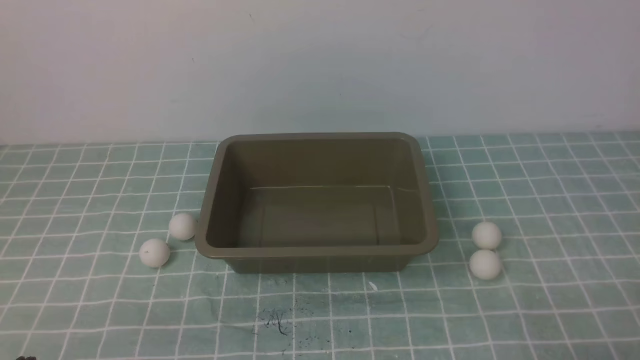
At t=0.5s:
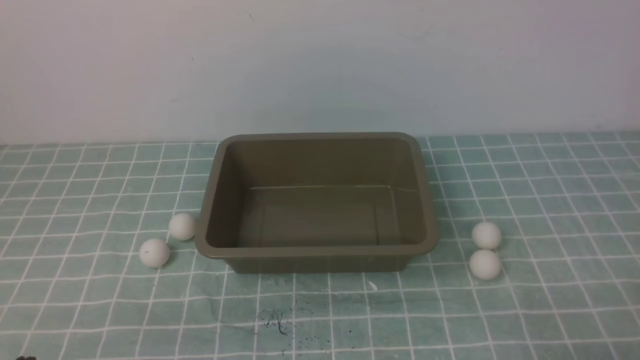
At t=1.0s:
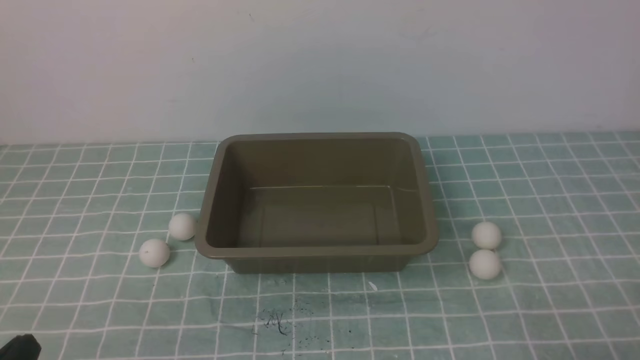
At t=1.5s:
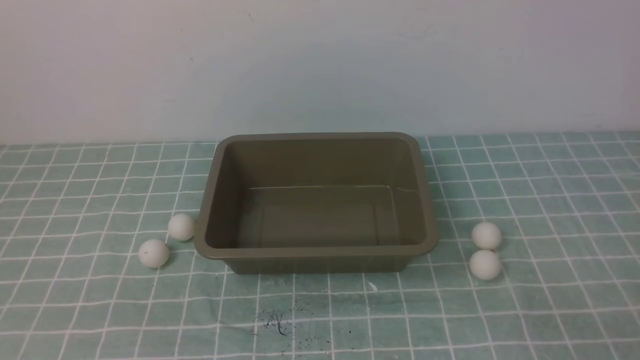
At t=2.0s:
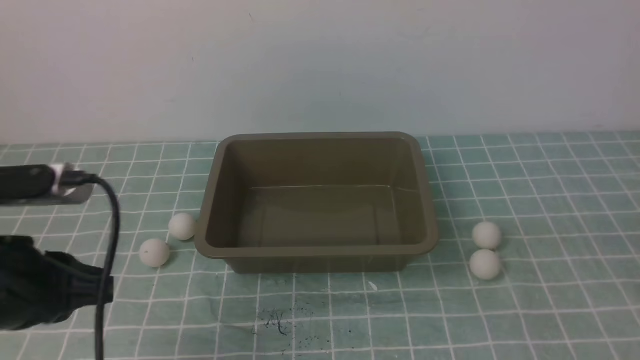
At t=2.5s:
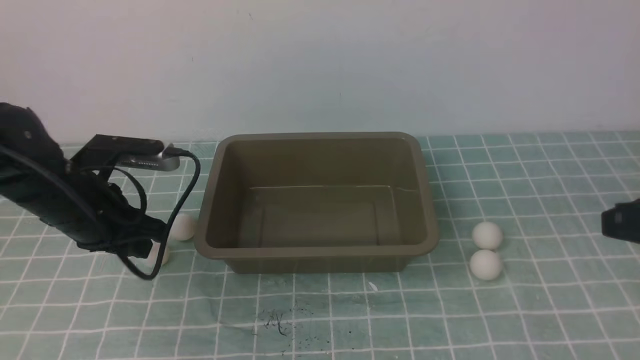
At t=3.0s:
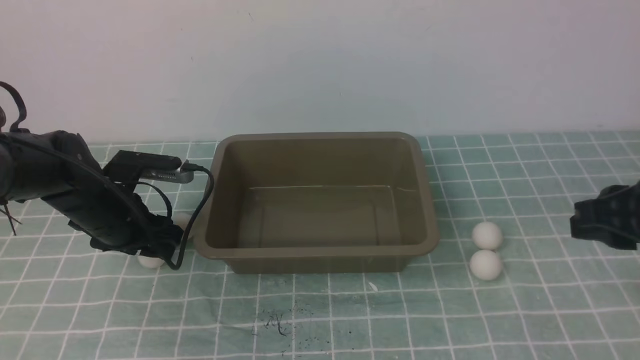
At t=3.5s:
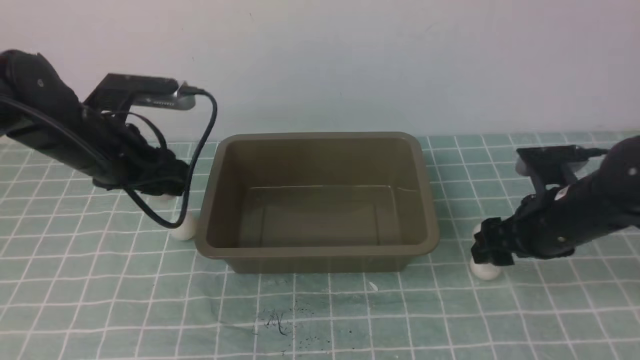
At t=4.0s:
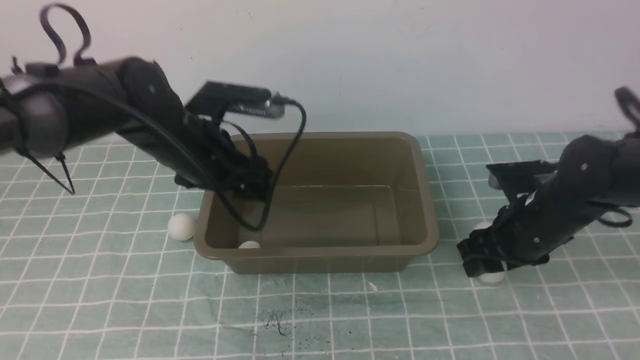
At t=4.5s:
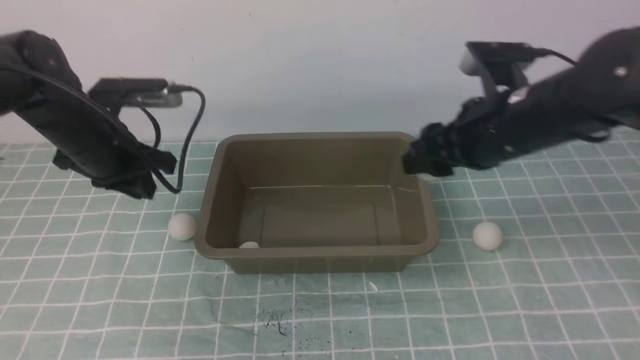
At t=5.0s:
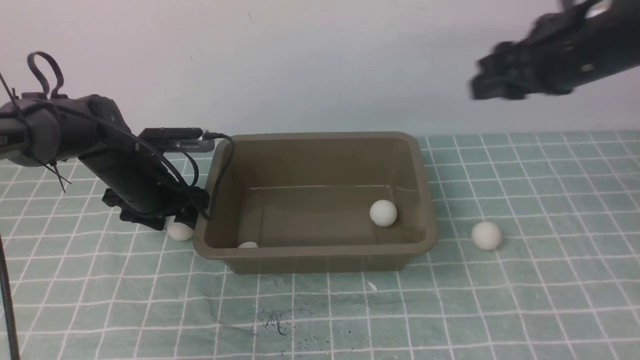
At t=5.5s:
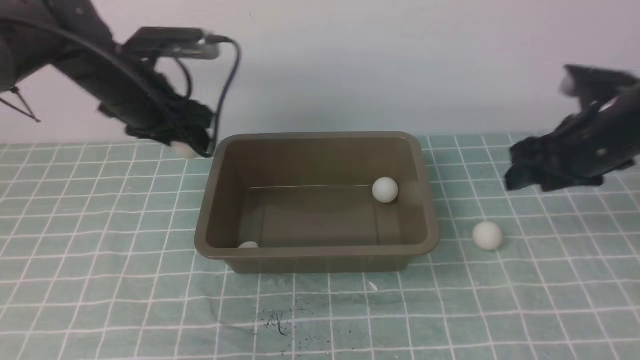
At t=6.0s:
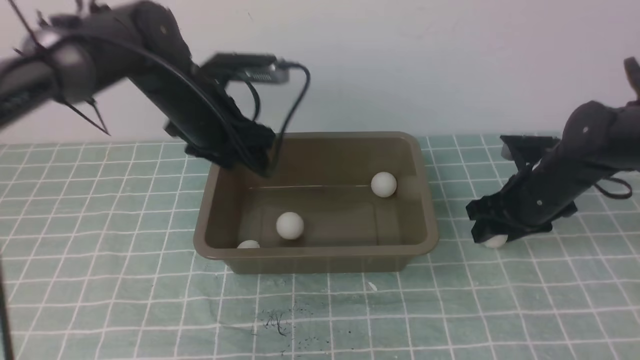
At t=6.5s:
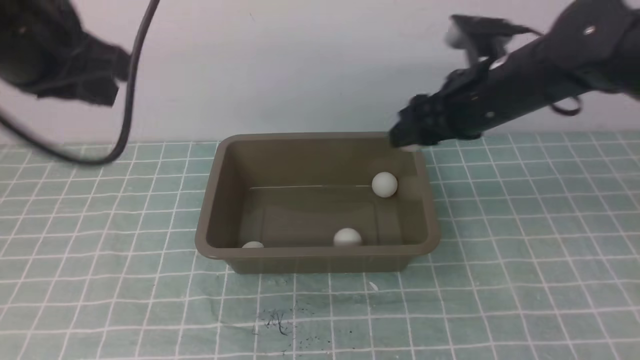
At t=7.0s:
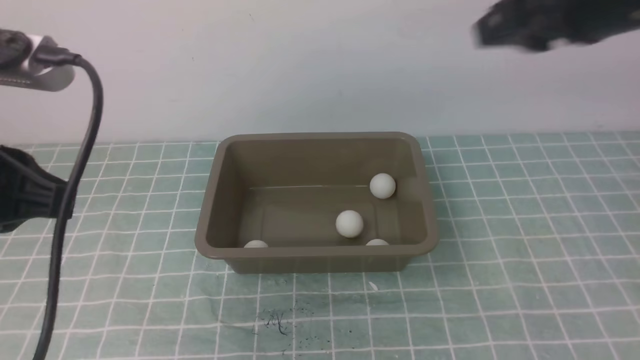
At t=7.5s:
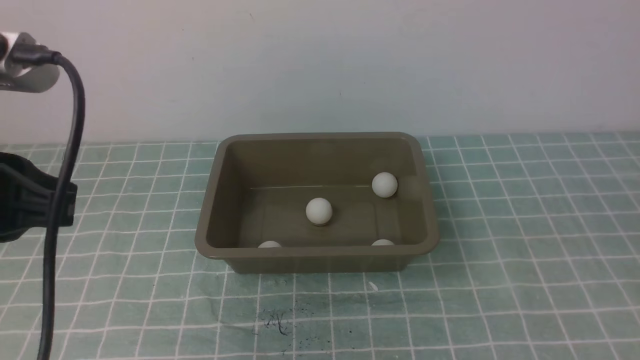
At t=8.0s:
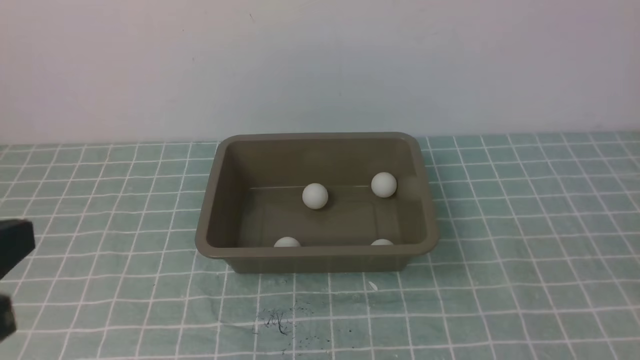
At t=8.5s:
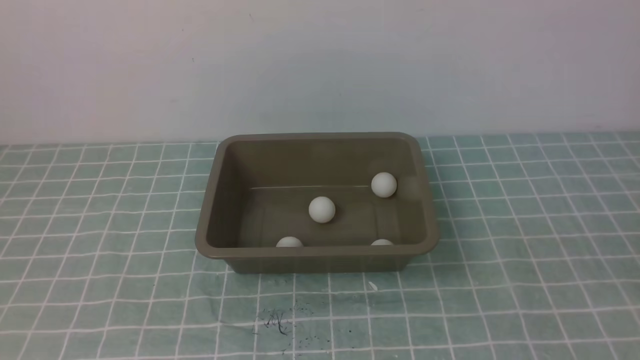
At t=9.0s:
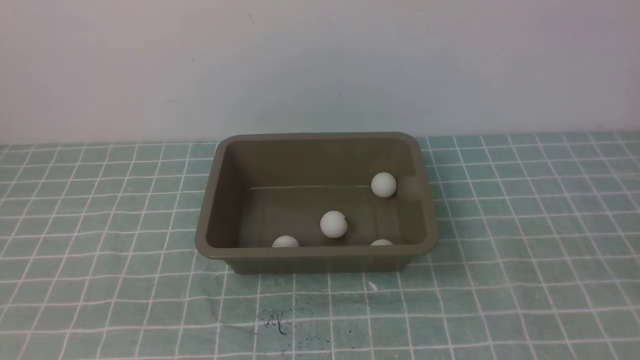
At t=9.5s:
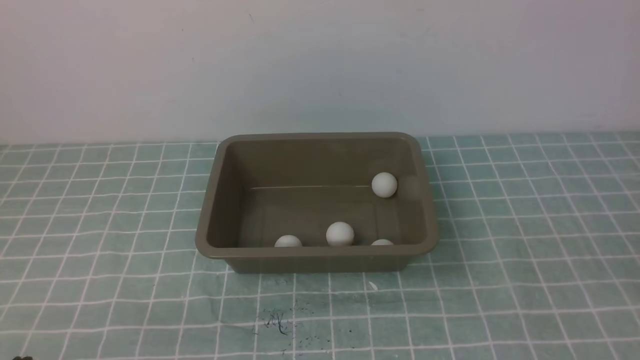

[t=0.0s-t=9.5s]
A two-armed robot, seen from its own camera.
Step, t=0.0s to t=3.0s: use the left arm to clamp the table tennis ball closest to it.
Step, t=5.5s to t=6.0s: use the left arm to put the table tennis ball into the box.
t=0.0s to t=2.0s: The left gripper goes about 15 cm forward and upward.
t=2.0s to t=4.0s: The right gripper goes about 25 cm forward and downward, and opens up. Meanwhile the left gripper moves forward, some 20 cm, and opens up.
t=4.0s to t=5.5s: The right gripper heads to the right, covering about 5 cm, and moves about 15 cm upward and comes back. The left gripper travels downward and back again, some 10 cm each way, and closes, then reopens.
t=5.5s to t=7.5s: The right gripper is displaced backward by approximately 35 cm, and closes its fingers, while the left gripper moves backward and upward, approximately 30 cm, and closes up.
t=7.5s to t=9.5s: The left gripper goes some 25 cm downward and backward.

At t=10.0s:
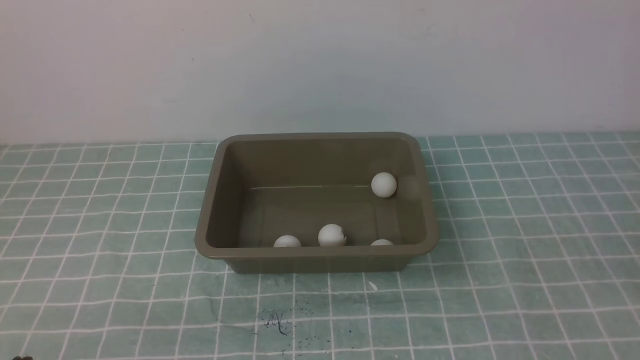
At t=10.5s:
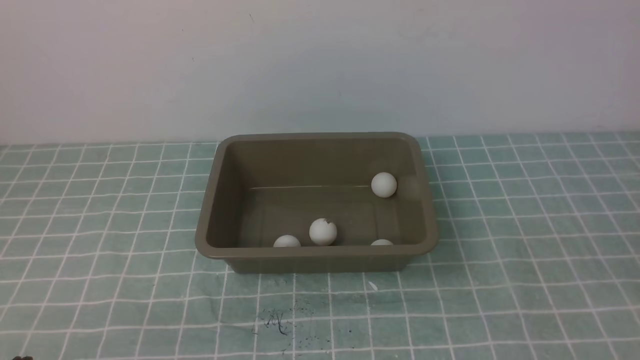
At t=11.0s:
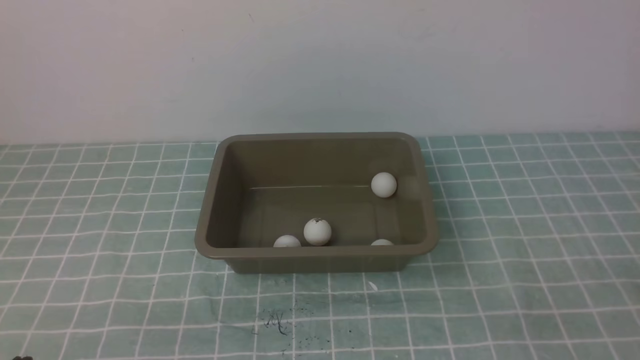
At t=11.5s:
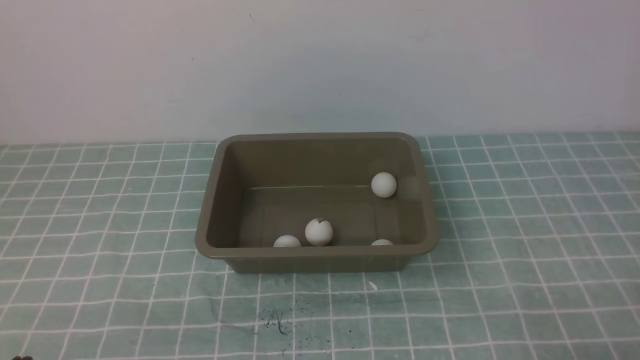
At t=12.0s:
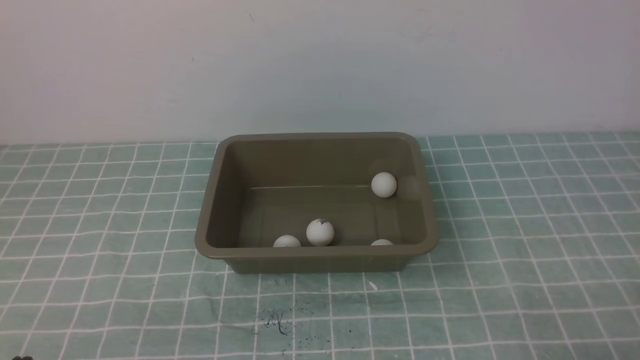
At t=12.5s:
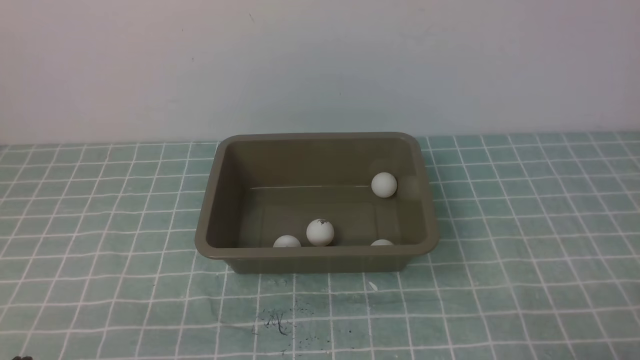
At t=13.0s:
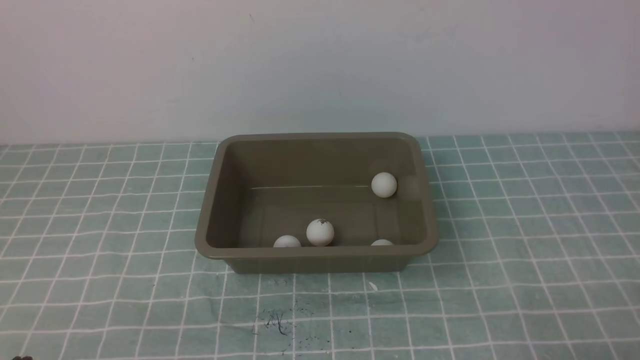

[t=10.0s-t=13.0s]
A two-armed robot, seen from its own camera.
t=11.5s to t=13.0s: Both grippers stay about where they are.
